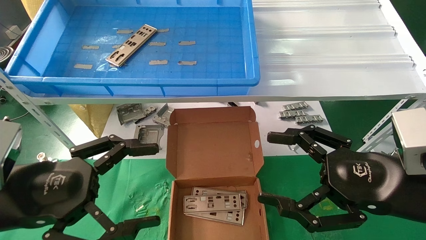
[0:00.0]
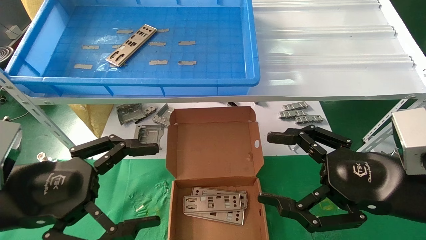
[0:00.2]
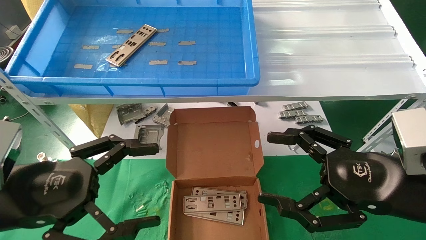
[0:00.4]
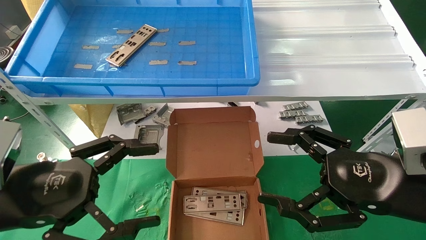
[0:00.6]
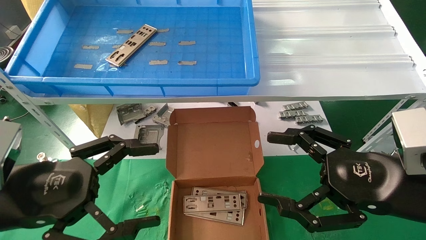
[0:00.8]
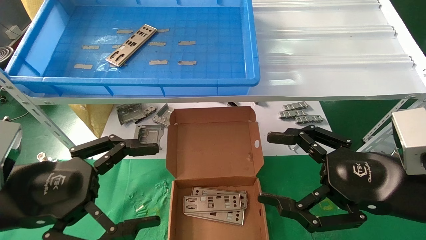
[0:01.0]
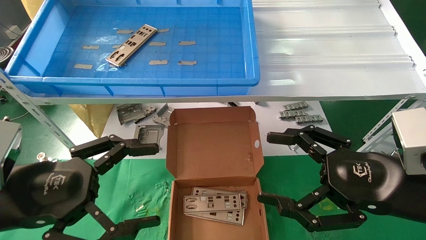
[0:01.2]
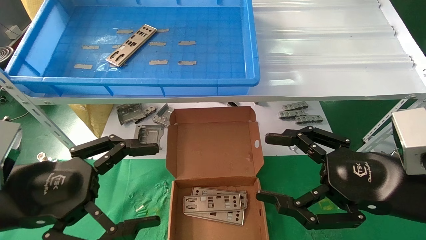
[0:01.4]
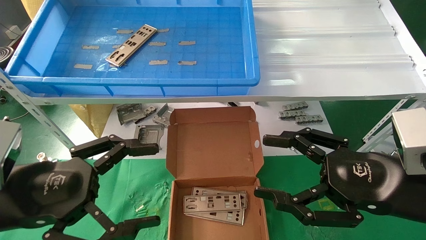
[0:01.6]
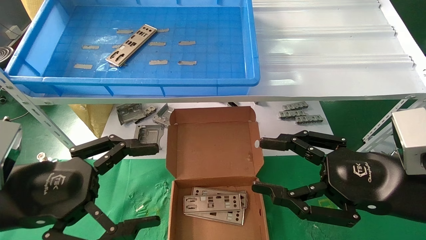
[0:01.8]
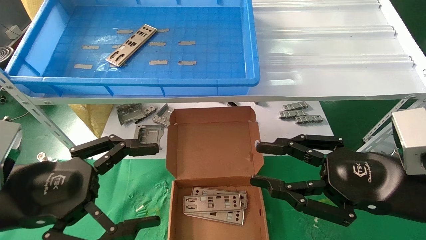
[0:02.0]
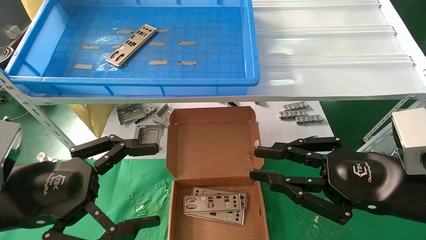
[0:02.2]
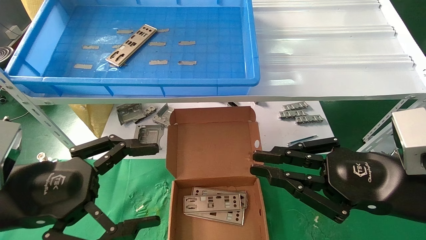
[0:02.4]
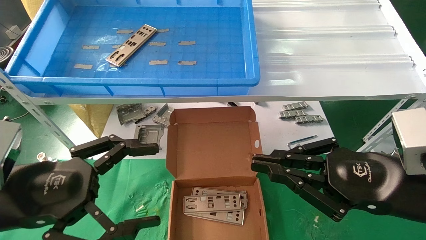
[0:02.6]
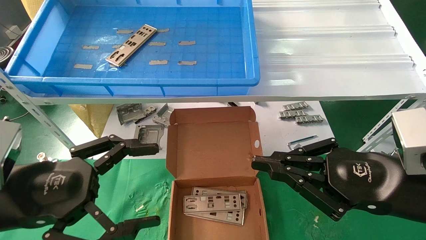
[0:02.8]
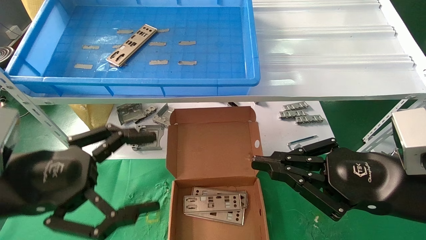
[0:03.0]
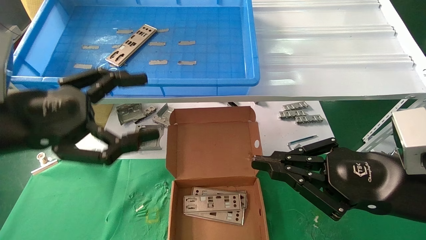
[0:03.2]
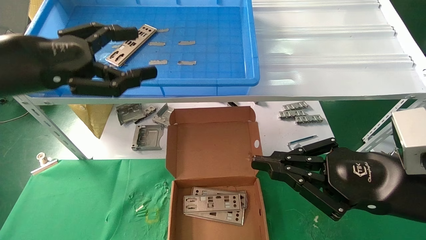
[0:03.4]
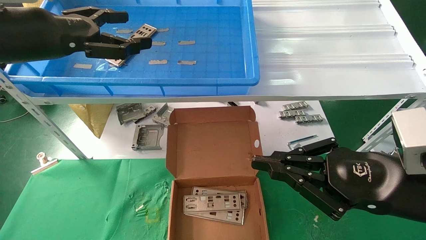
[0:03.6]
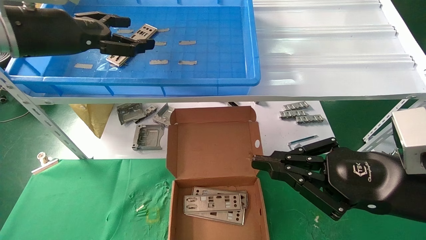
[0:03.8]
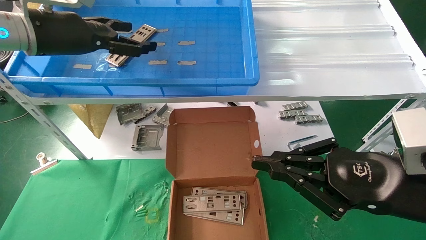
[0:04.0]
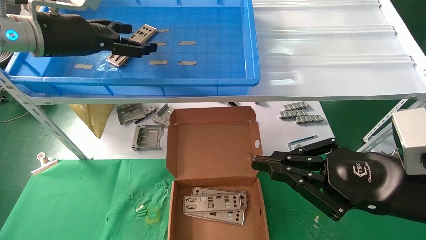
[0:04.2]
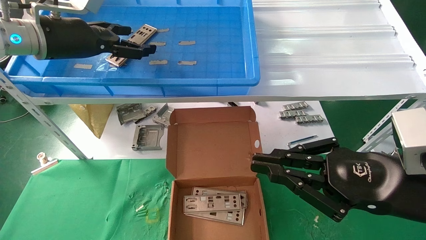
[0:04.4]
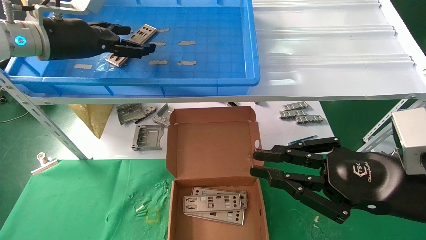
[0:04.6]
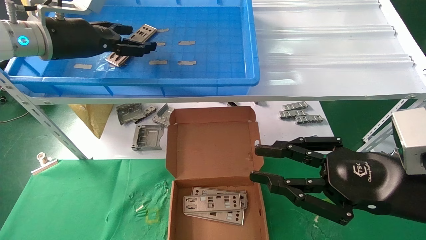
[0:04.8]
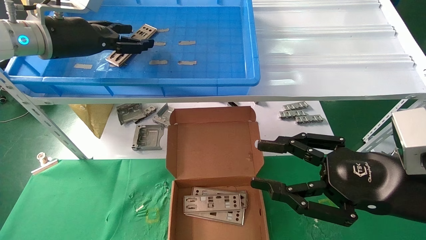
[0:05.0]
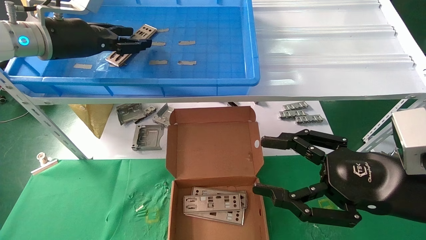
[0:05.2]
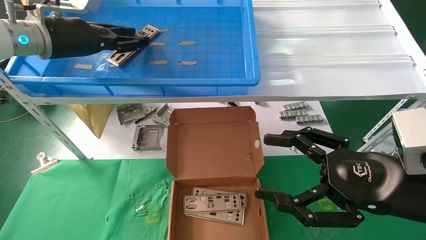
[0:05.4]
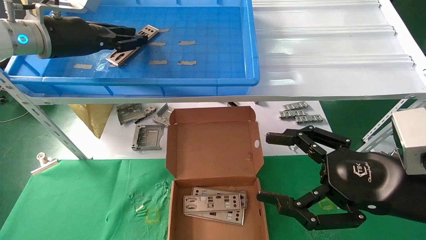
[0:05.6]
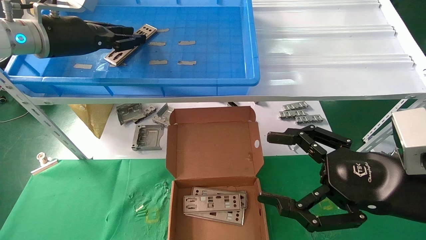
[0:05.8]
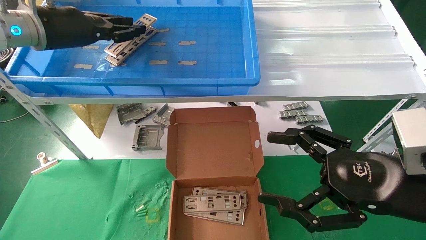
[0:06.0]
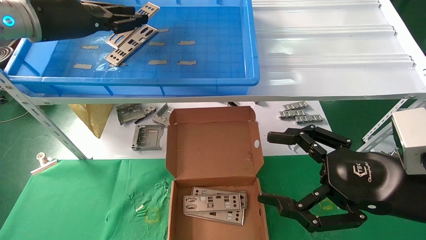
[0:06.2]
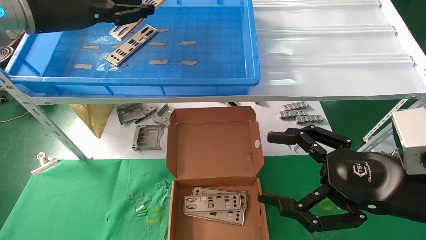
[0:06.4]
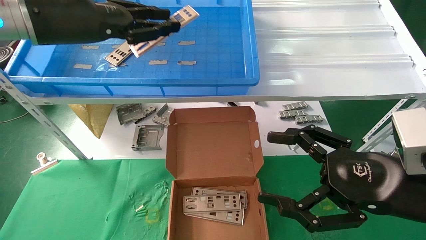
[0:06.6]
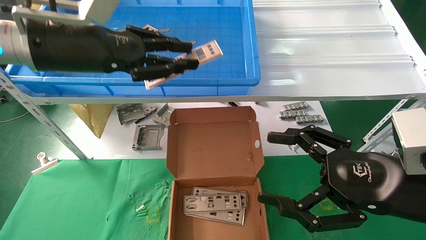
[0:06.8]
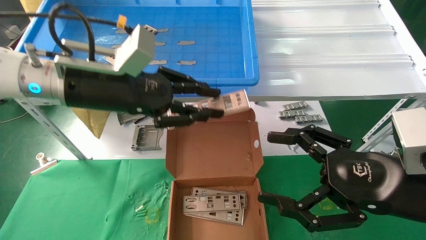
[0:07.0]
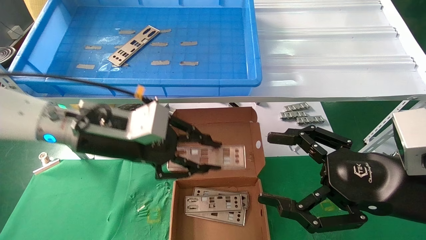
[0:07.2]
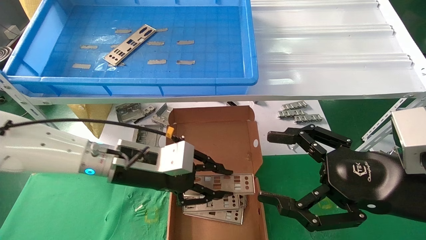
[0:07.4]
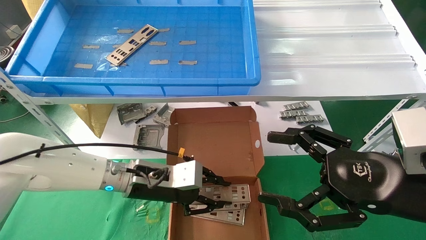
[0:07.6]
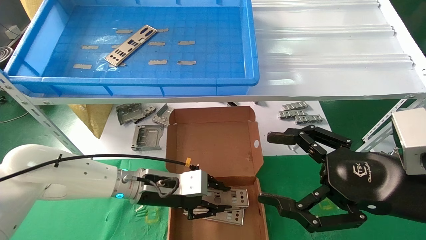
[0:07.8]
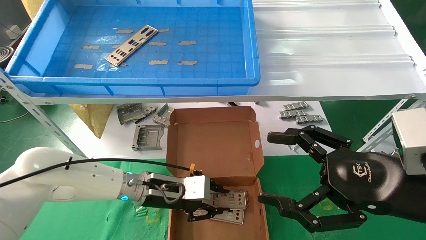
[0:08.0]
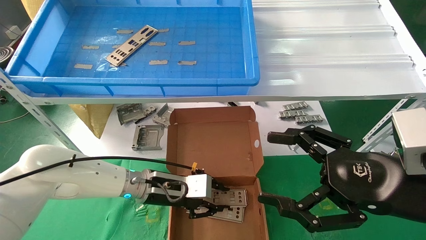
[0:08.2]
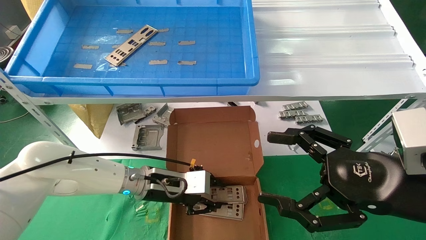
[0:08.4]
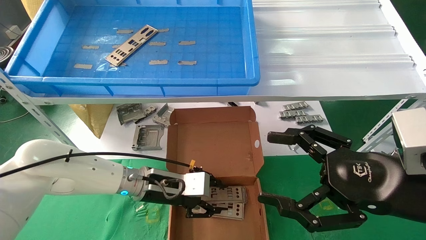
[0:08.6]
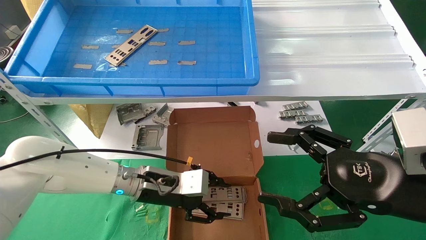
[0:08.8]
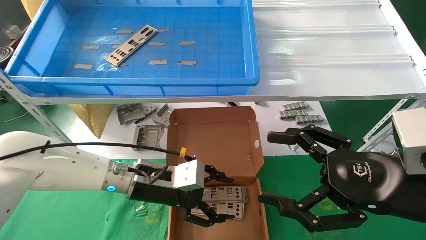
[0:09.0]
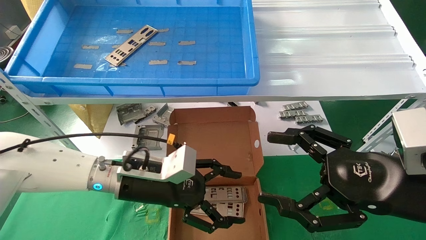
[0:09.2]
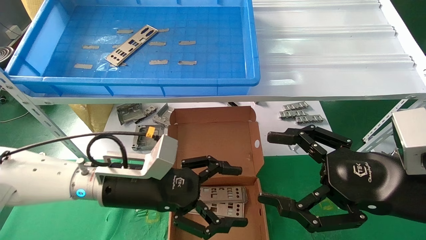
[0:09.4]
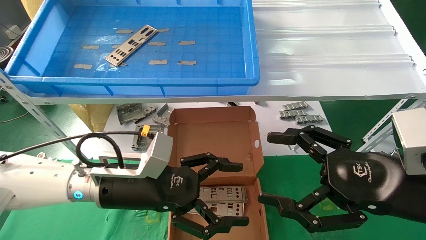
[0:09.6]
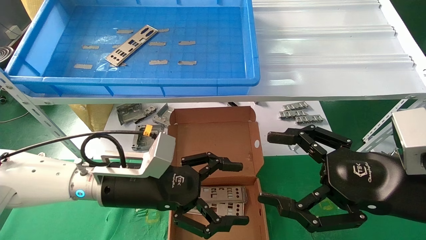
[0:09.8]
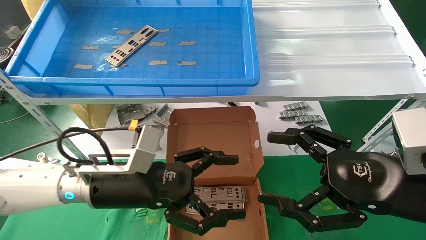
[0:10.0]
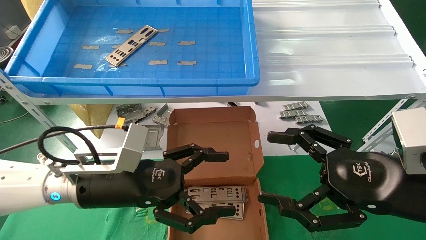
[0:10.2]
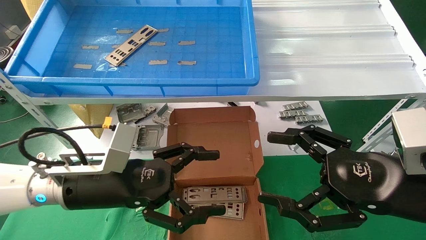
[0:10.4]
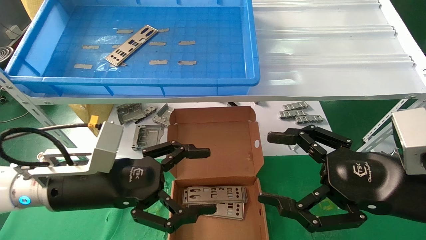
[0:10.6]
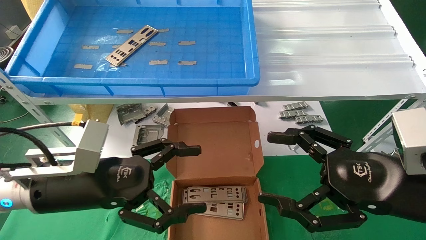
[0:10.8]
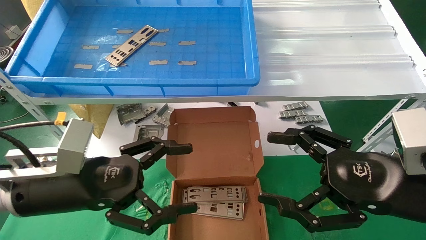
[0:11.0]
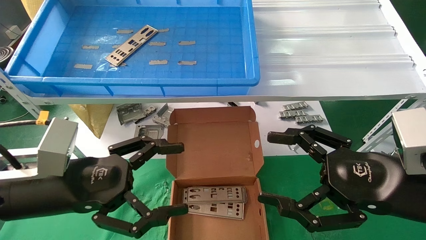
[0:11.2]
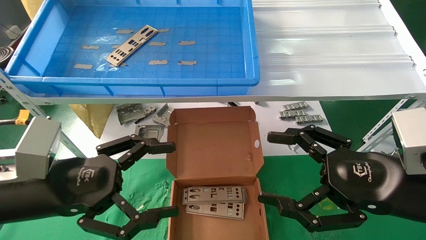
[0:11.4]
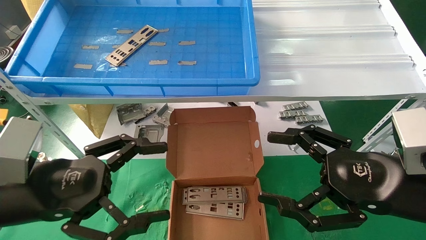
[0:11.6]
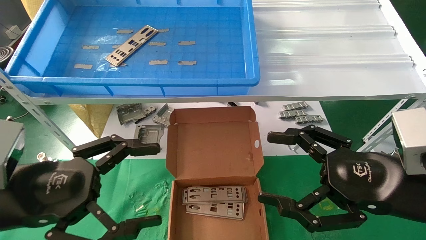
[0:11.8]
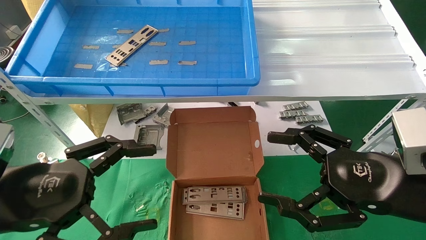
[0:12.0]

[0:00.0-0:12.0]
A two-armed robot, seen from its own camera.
Task of the whole recording: pick up the parts on the tray and put them in the cardboard box.
Step, 0:03.4 to 0:05.8: Pick up the IO bracket from the container box.
Step, 0:06.0 to 0:08.8: Place the IO bracket into the ingredient slot.
0:00.0 to 0:01.6: Both grippers stay put.
0:01.6 to 0:03.0: The right gripper closes up.
0:03.0 to 0:04.4: The left gripper moves forward and upward, some 25 cm.
0:04.4 to 0:06.0: The right gripper opens. Meanwhile the left gripper closes.
0:06.0 to 0:07.6: The left gripper travels downward and to the right by about 30 cm.
0:07.6 to 0:09.0: The left gripper opens up.
0:09.0 to 0:10.4: The left gripper heads backward and to the left, covering some 10 cm, and opens its fingers.
0:10.4 to 0:12.0: The left gripper is displaced backward and to the left by some 15 cm.

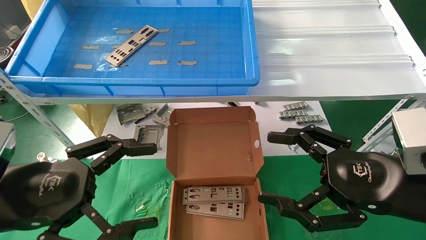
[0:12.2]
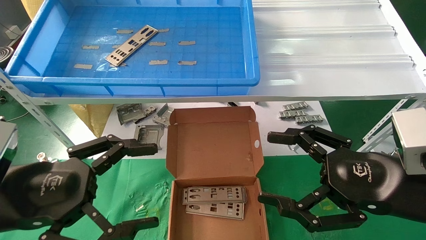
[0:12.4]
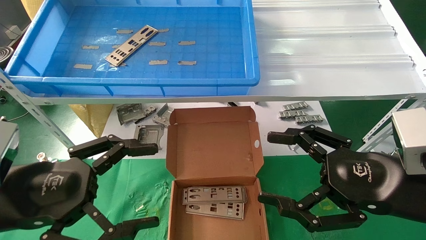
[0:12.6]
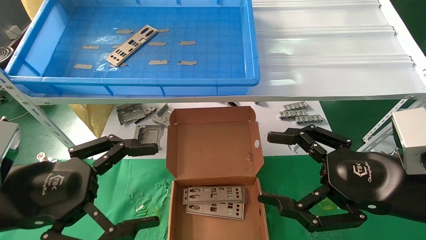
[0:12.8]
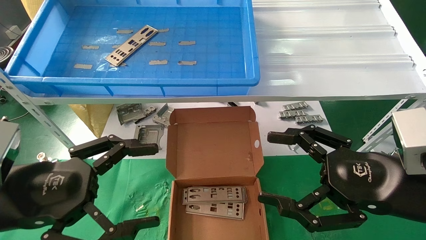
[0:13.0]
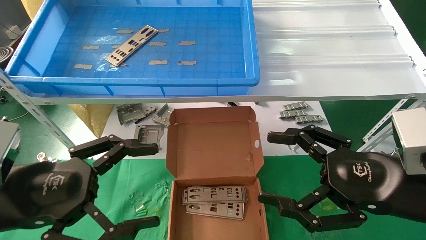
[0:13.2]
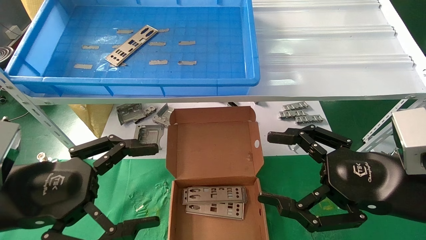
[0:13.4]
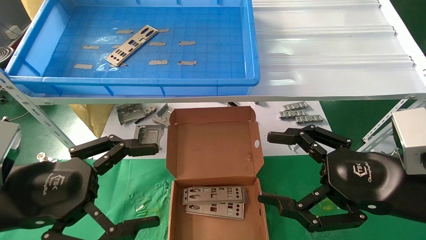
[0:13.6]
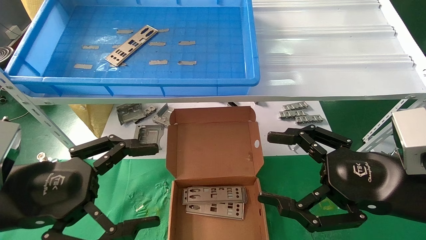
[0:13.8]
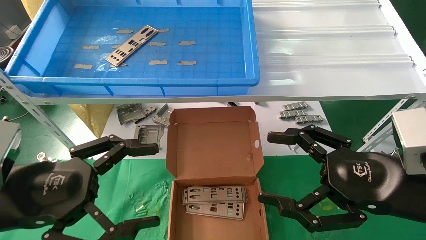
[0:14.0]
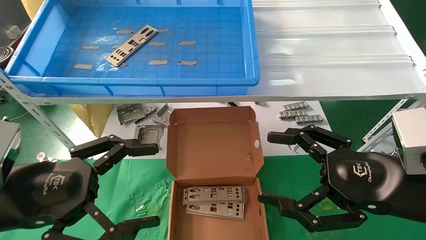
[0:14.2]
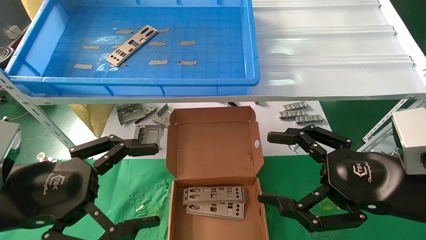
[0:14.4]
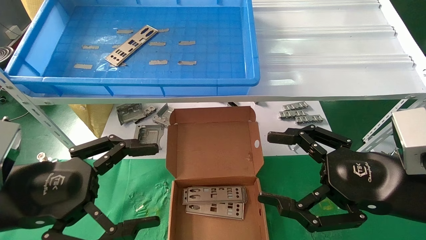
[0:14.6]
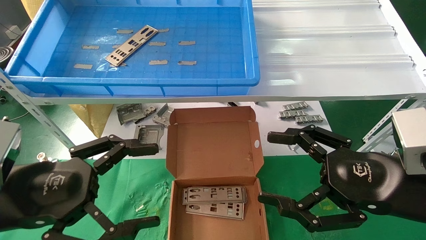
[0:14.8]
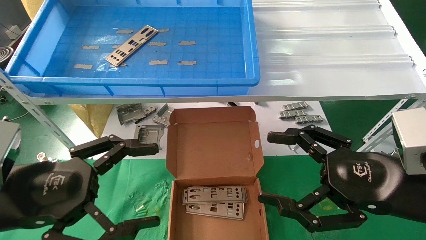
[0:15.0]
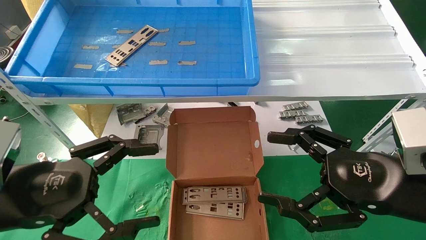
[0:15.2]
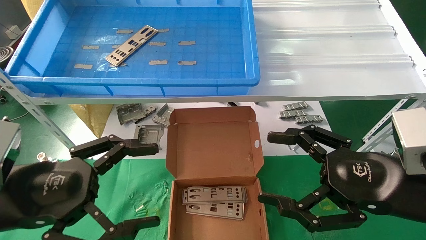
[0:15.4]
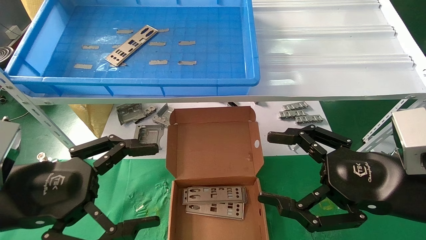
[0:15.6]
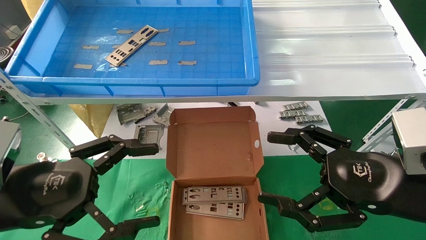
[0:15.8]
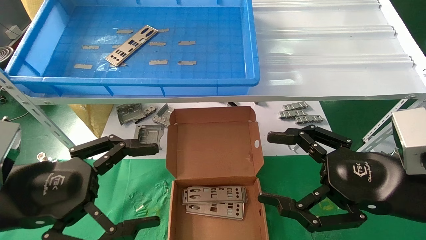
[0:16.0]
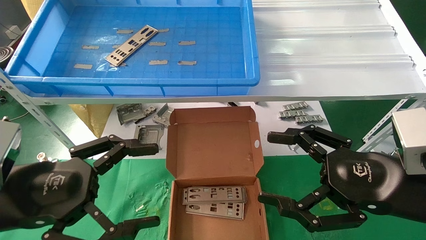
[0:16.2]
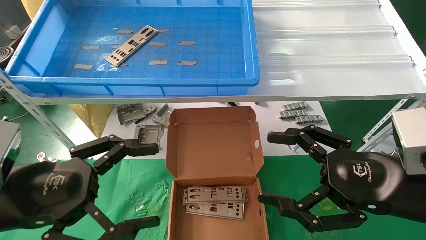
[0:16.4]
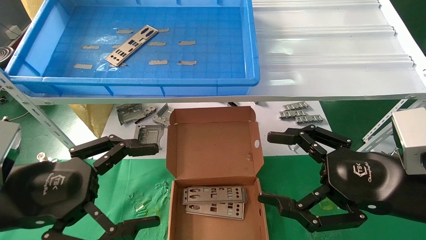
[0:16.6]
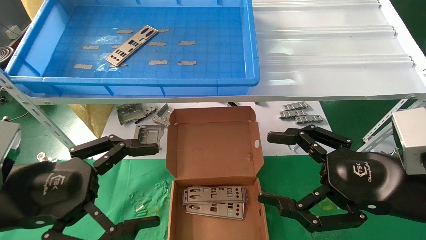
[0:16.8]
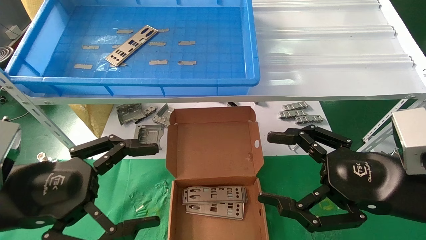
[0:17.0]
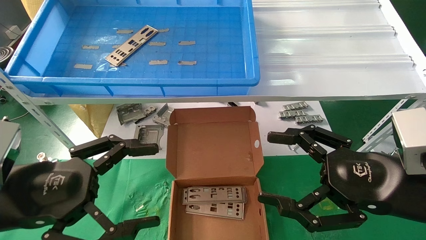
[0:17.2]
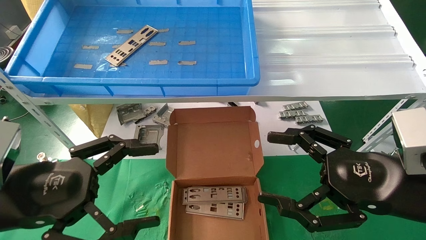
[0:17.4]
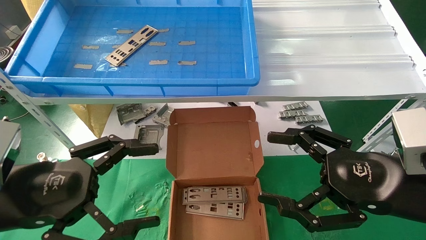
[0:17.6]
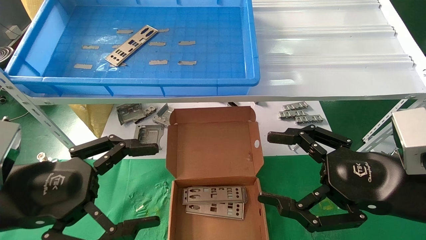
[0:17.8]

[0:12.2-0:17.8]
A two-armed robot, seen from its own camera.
Task of the whole recording: pick up the parts on the tray and put them in the cardboard box.
0:12.2 to 0:17.8: The two grippers keep their place.
